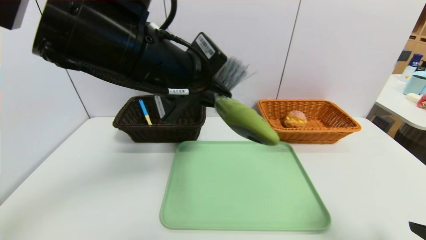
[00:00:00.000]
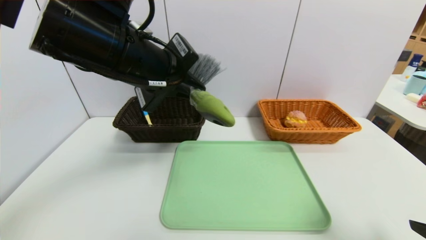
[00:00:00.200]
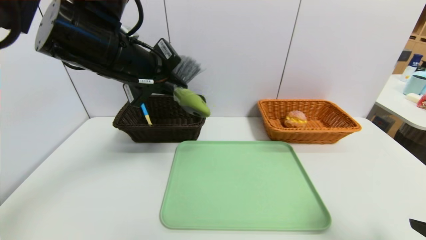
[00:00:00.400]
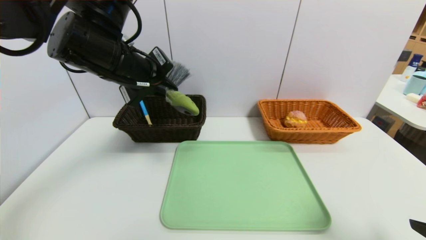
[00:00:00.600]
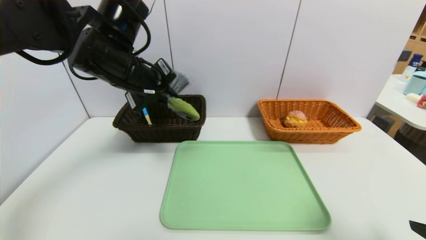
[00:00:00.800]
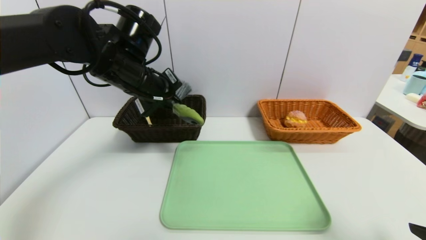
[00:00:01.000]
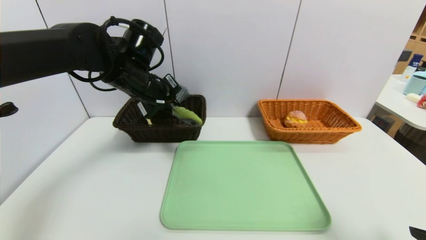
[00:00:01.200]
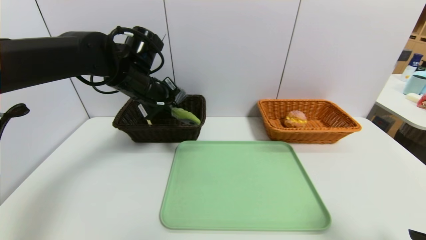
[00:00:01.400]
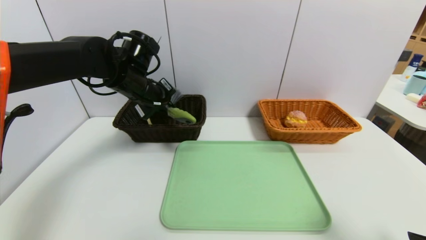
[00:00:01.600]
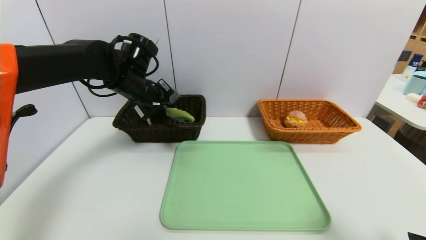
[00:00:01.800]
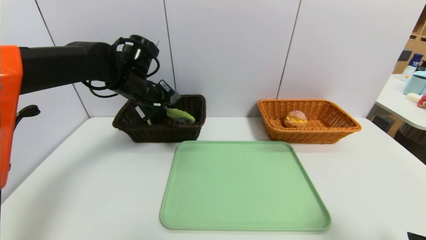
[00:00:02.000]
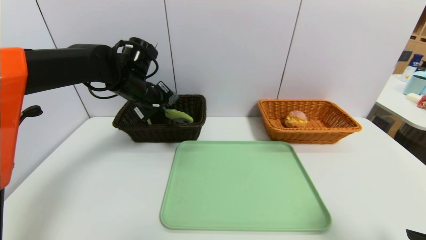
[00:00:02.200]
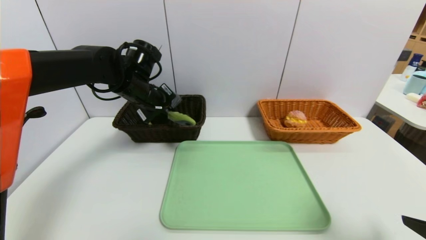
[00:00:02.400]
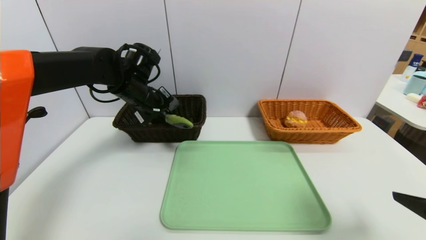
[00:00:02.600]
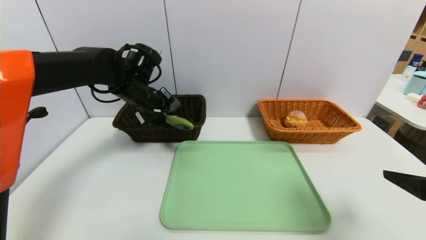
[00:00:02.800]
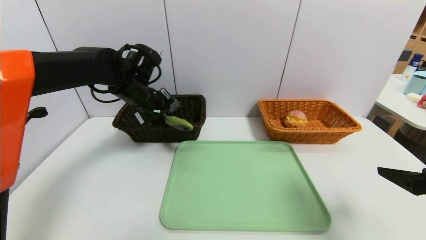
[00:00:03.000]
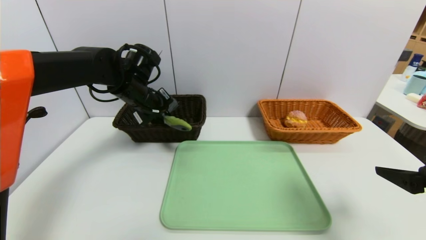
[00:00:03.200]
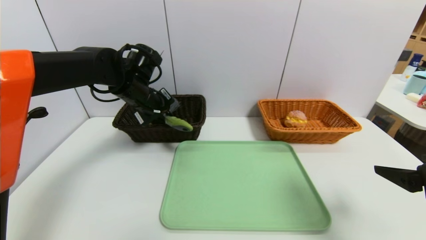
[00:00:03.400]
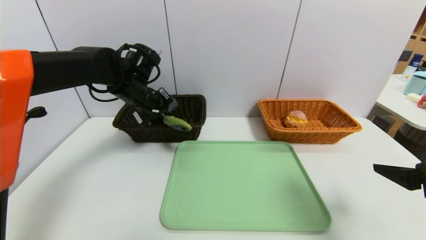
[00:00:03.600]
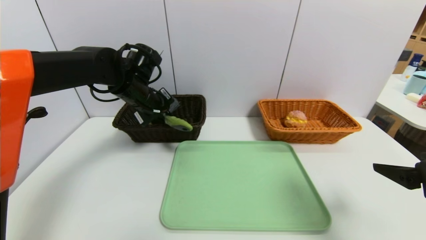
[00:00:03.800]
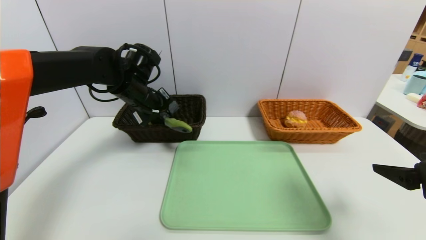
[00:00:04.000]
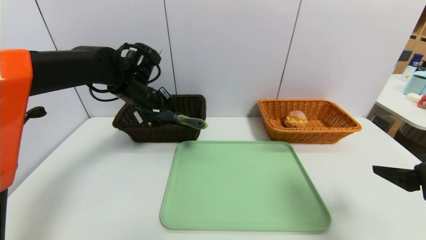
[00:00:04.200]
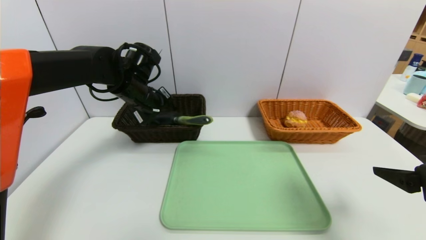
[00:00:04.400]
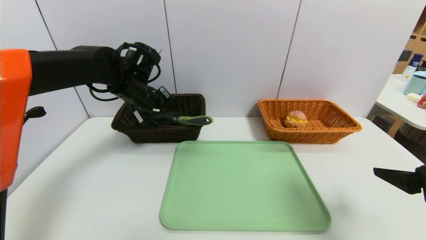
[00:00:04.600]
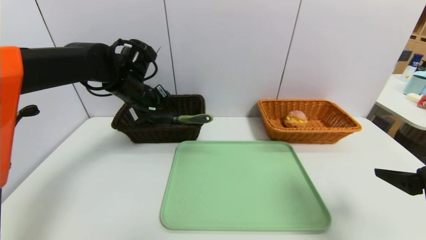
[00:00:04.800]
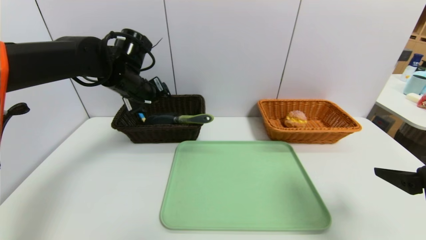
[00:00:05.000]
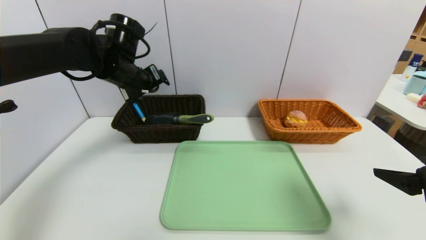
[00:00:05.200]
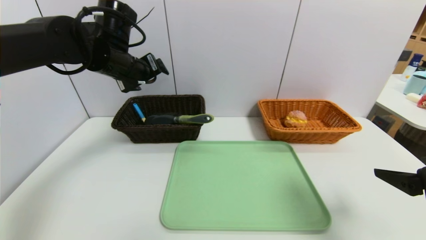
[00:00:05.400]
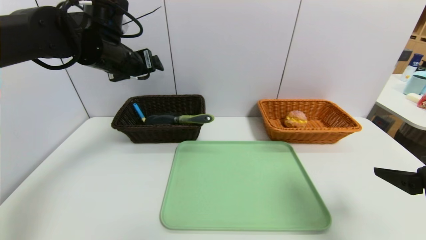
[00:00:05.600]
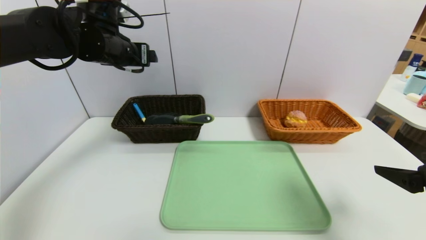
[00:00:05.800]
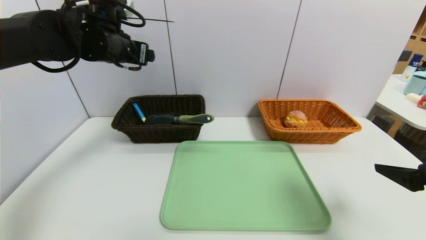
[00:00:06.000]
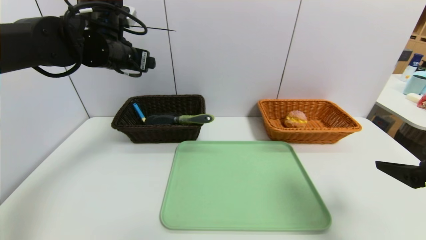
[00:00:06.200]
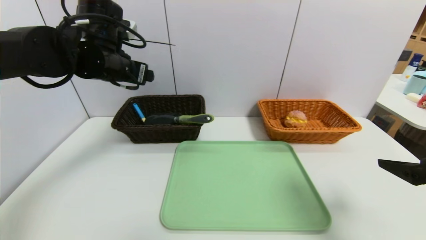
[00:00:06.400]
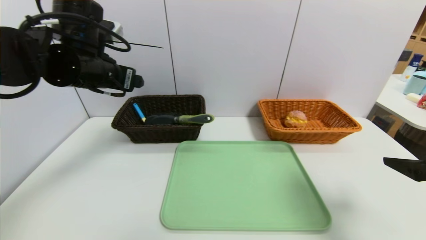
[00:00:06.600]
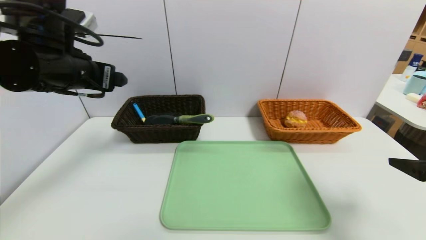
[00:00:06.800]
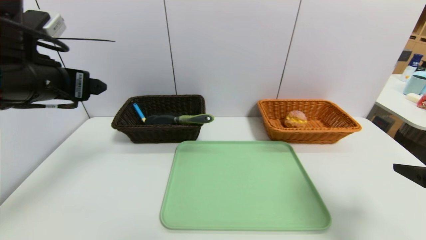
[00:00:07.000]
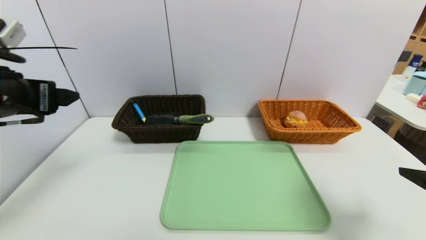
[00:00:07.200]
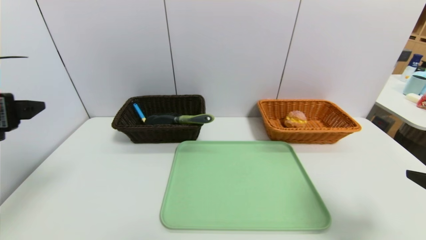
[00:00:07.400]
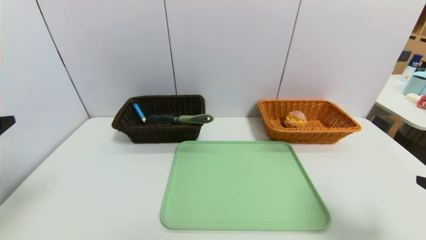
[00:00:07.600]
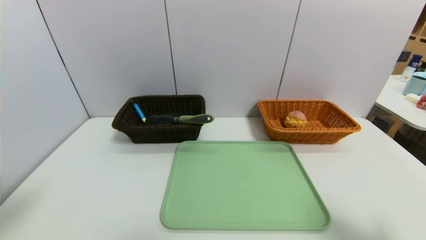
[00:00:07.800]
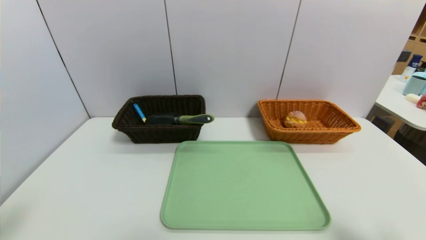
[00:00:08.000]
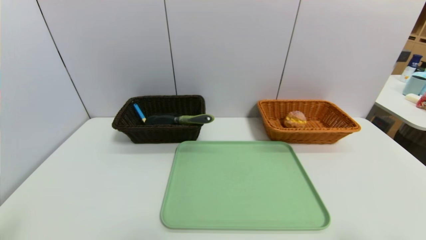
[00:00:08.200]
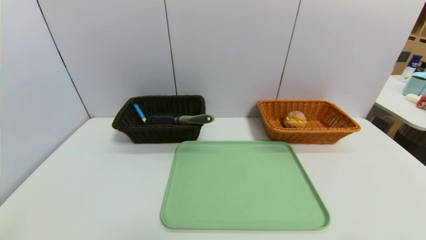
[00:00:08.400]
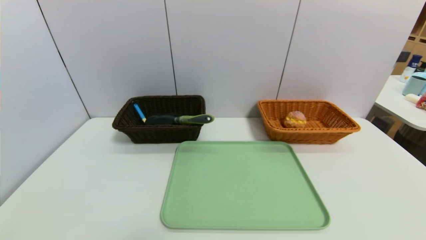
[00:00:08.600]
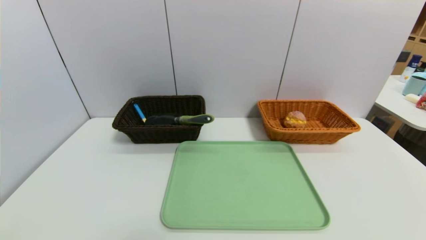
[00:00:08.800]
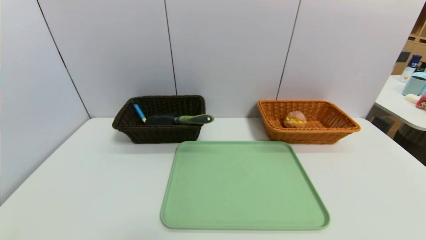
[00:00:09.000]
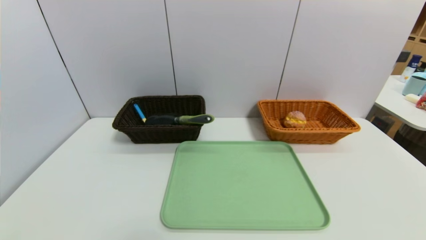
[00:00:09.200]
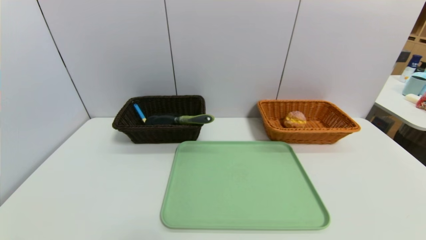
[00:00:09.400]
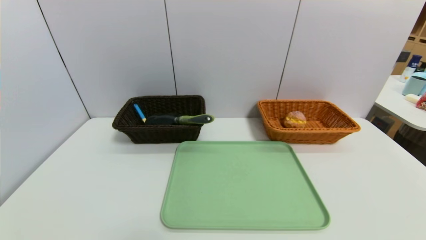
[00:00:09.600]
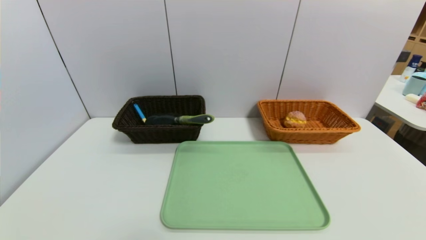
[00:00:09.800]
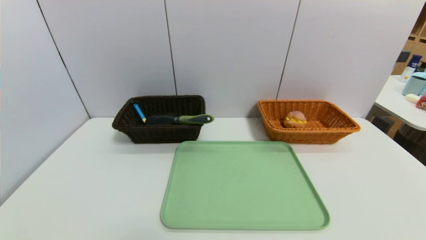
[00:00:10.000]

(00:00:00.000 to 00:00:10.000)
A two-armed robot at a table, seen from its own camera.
Task of the whole recording: place the food in the right basket with the right gripper, and place the non food items in the left basket with the left gripper.
Step, 00:00:00.000 - 00:00:04.600: Grasp the brush and put it in the left basket.
00:00:00.000 - 00:00:01.400: The left gripper travels forward, downward and to the left by roughly 20 cm.
00:00:01.400 - 00:00:02.800: The right gripper heads forward, covering approximately 5 cm.
00:00:02.800 - 00:00:04.200: The left gripper opens.
00:00:04.200 - 00:00:05.800: The left gripper moves upward, about 10 cm, and opens.
00:00:05.800 - 00:00:07.200: The left gripper shifts some 20 cm backward and to the left.
00:00:07.200 - 00:00:08.600: The left gripper goes approximately 25 cm backward and downward. Meanwhile the right gripper shifts some 15 cm backward.

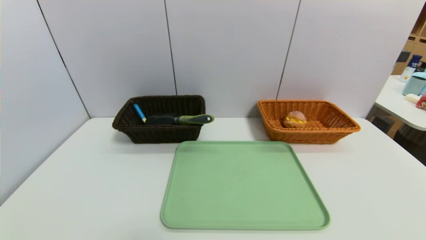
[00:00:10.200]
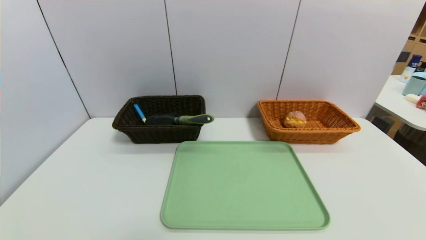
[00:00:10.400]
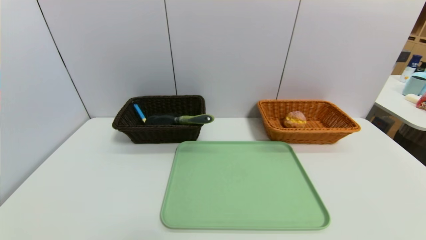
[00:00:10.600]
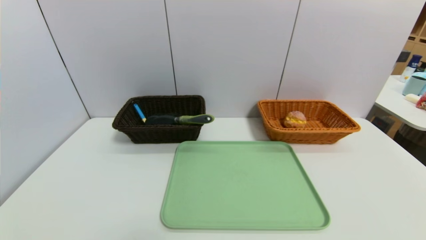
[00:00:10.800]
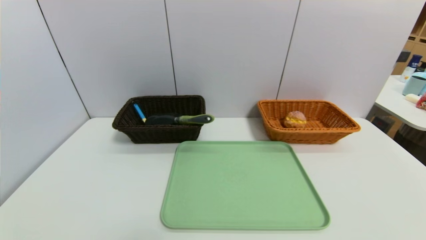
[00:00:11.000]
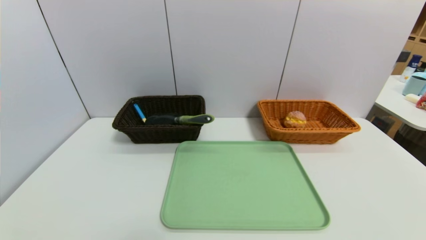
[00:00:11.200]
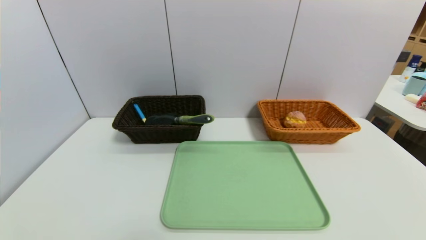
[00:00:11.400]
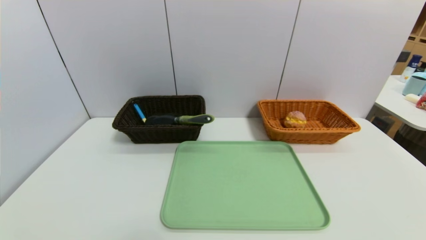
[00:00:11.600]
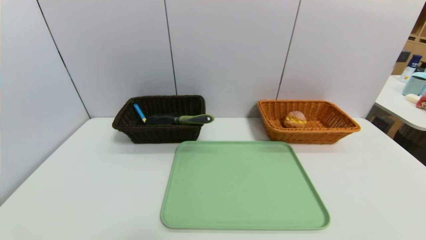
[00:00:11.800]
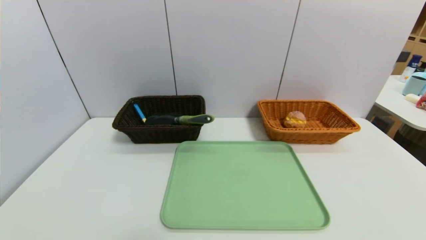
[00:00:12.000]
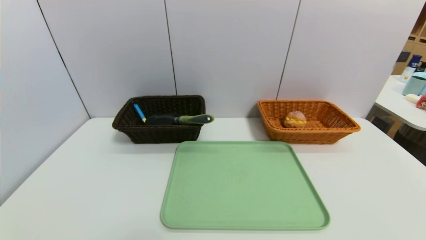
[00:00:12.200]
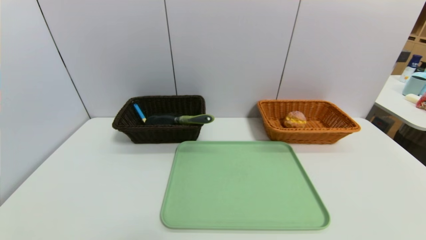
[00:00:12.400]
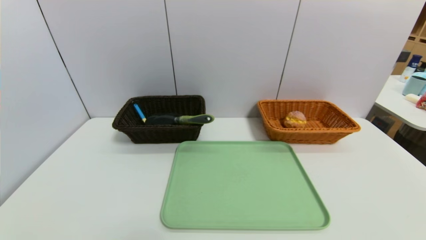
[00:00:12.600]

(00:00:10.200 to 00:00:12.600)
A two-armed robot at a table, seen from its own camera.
Task of the whole recording: place the food in the right basket with the right gripper, and place the non food items in the left basket with the left gripper.
00:00:11.400 - 00:00:12.600: Both grippers stay put.
